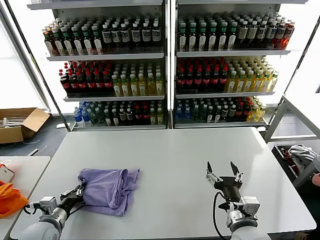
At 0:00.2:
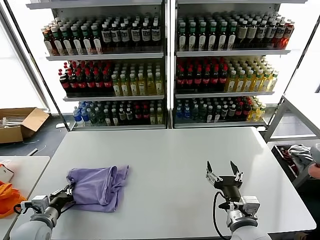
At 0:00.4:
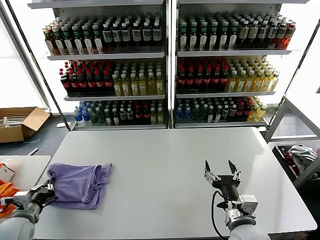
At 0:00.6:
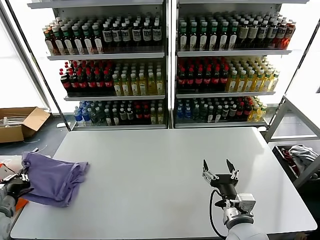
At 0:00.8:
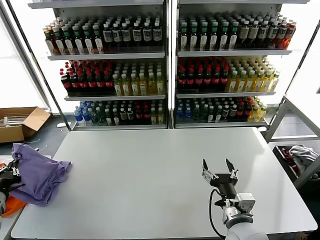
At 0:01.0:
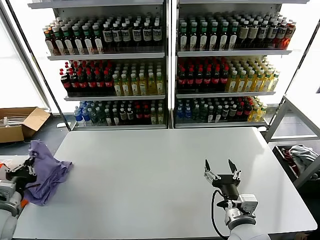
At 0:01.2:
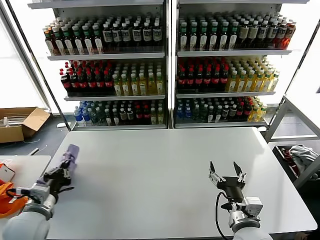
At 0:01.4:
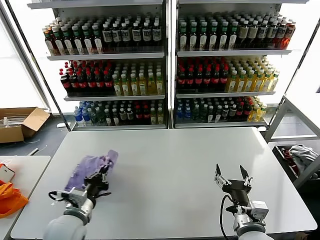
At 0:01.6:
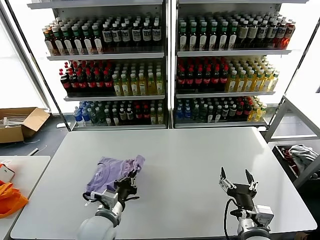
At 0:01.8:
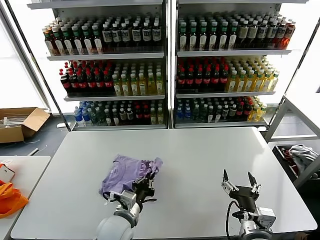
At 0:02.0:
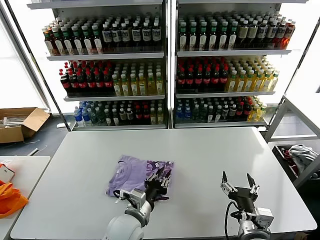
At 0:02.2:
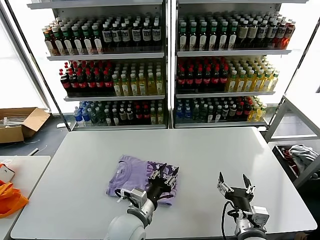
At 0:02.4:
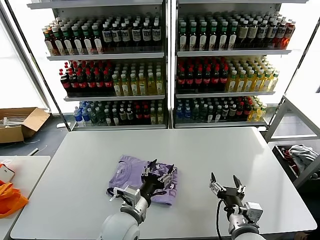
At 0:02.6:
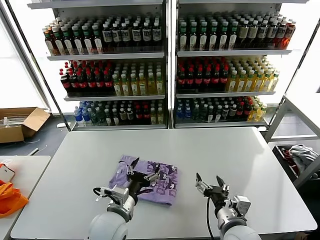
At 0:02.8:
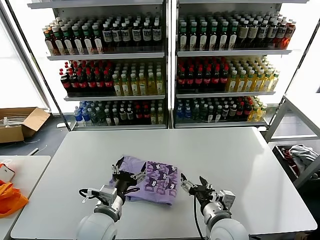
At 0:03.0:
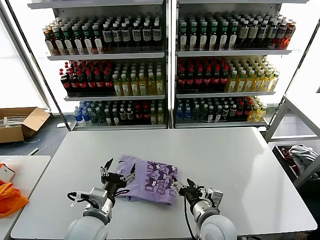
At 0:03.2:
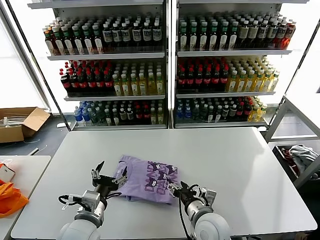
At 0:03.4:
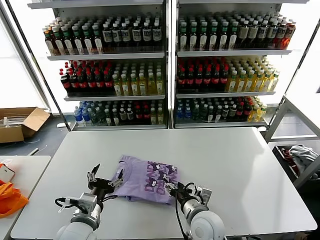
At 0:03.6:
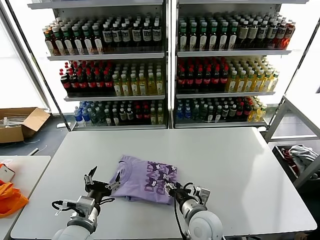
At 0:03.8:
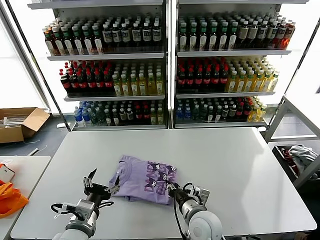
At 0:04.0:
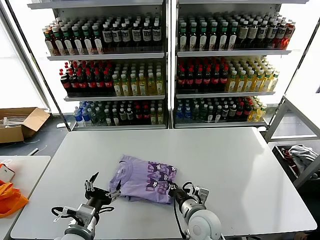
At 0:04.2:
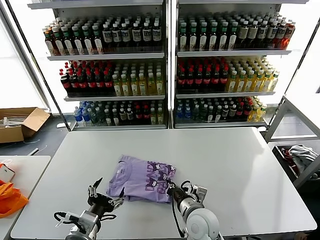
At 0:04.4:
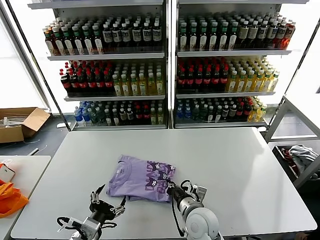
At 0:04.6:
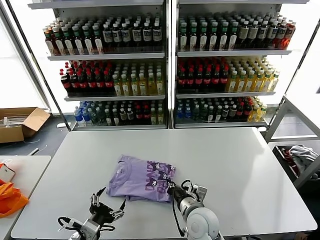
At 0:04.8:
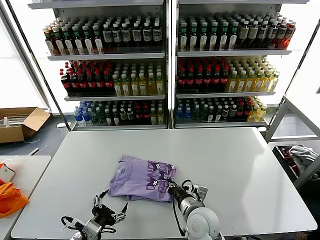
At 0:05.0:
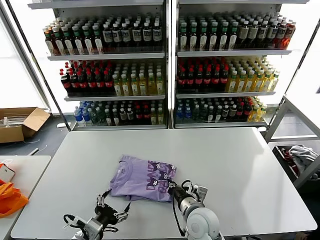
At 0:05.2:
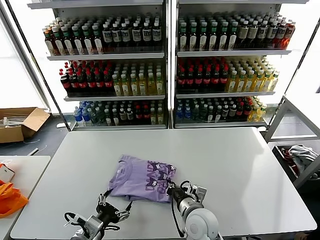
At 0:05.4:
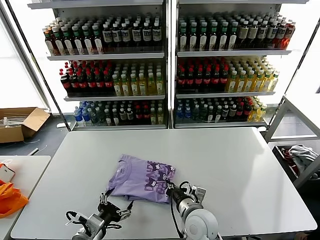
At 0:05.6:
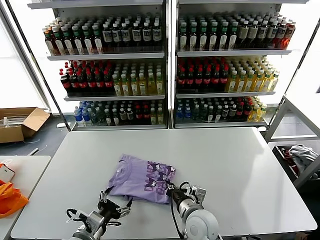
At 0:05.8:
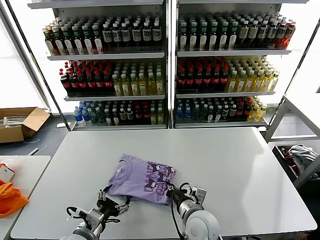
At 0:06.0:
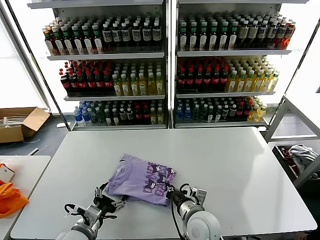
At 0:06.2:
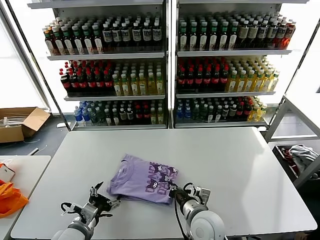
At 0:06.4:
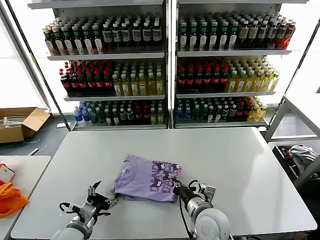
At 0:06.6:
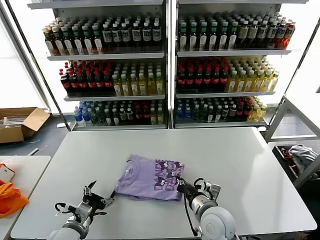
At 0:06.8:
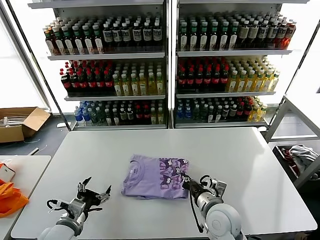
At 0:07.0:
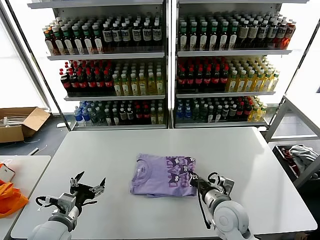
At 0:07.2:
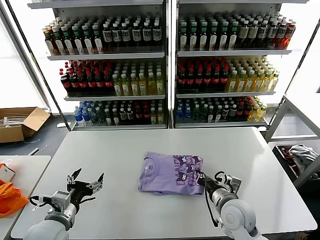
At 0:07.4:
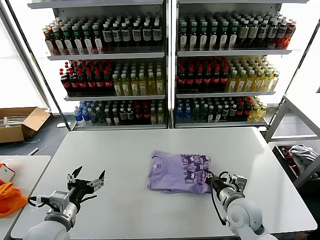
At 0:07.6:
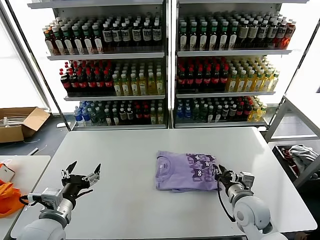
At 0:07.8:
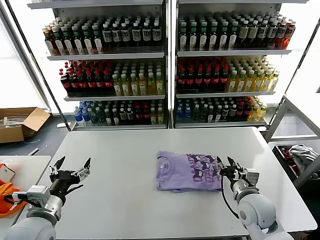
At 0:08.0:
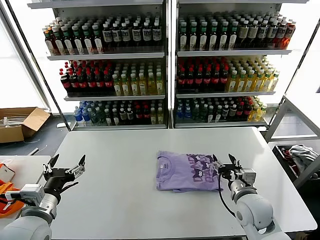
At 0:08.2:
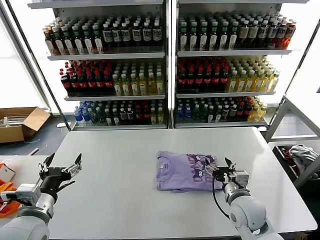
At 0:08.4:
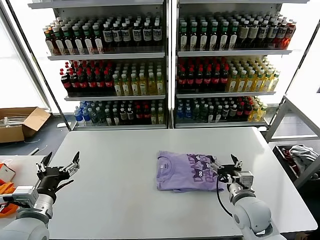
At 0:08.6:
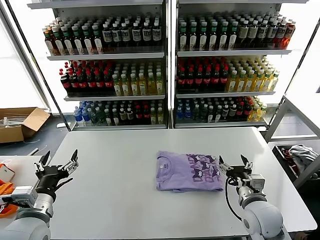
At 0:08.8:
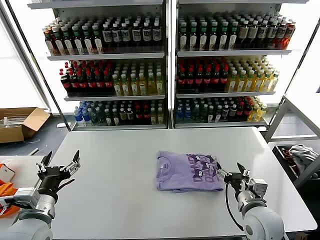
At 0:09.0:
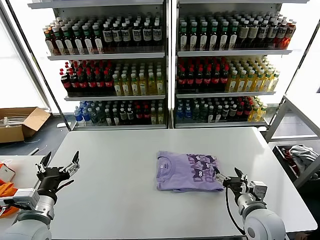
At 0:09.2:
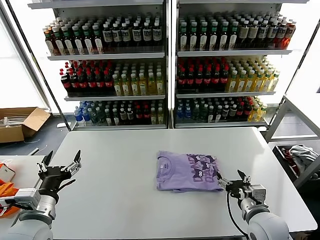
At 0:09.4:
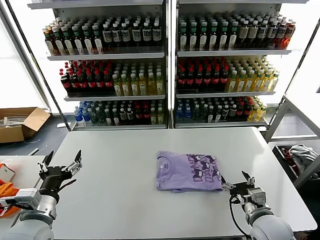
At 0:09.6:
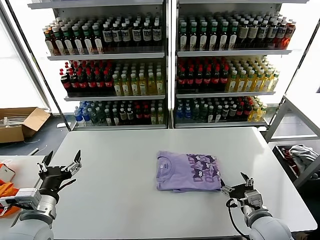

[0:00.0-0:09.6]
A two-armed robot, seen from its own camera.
Task of the whole recording: fold and organize the clothes.
Step, 0:00.0 to 0:02.0: Flip the folded clothes over with left gripper.
0:00.0 to 0:01.6: The left gripper goes roughly 15 cm to the right.
0:01.6 to 0:03.2: The left gripper travels to the right and back again, roughly 10 cm each way, and opens up. Meanwhile the right gripper shifts about 10 cm to the left and forward.
0:03.2 to 0:04.8: The right gripper closes up, while the left gripper shifts about 5 cm backward.
0:04.8 to 0:06.4: The left gripper goes roughly 5 cm forward.
0:06.4 to 0:08.0: The left gripper moves upward, approximately 10 cm; the right gripper moves to the right, roughly 15 cm, and opens its fingers.
0:08.0 to 0:09.6: The right gripper is displaced backward by some 5 cm.

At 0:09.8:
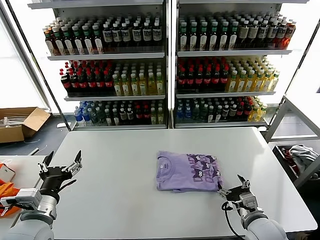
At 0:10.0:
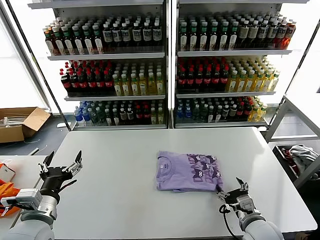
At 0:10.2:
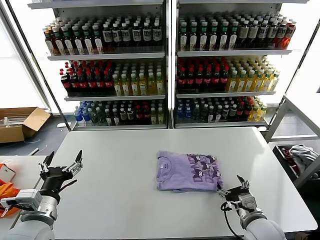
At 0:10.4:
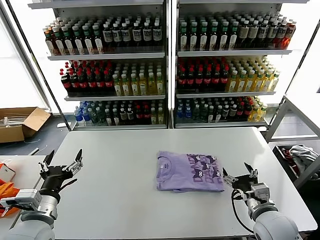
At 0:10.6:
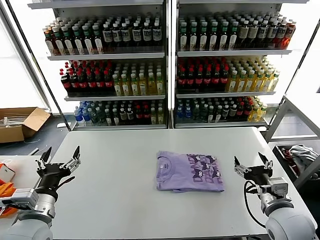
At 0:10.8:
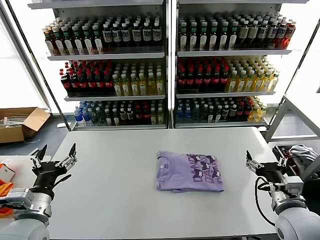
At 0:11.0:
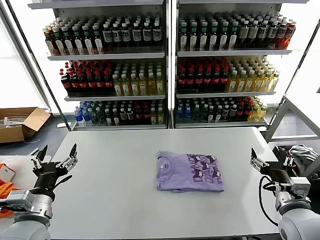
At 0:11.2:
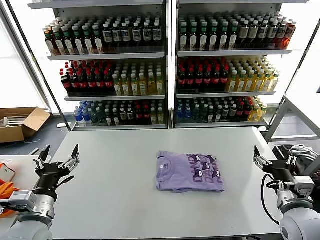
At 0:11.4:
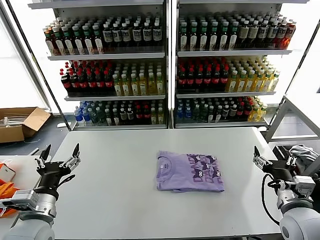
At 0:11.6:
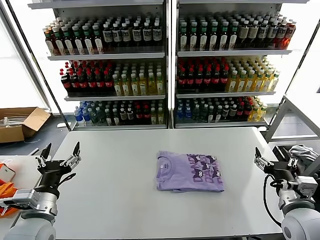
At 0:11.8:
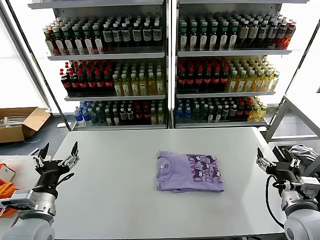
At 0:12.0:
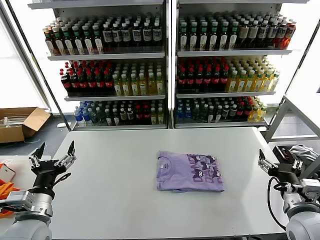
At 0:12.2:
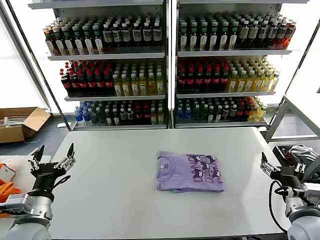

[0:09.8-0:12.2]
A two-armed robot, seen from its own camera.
Task of the whole recording: fold and organize the clothes.
0:09.8 to 0:11.0: The right gripper goes about 10 cm upward.
0:11.0 to 0:12.2: The grippers make only small movements.
